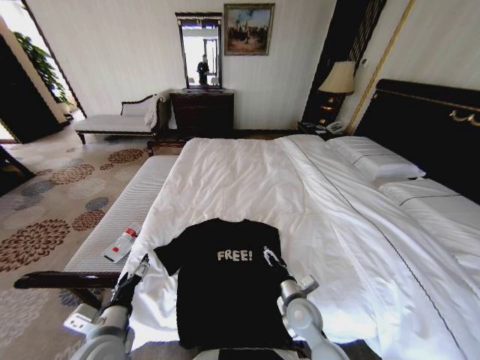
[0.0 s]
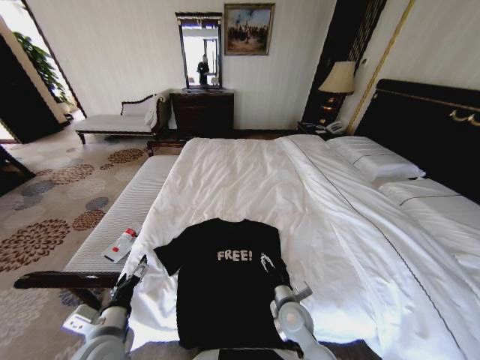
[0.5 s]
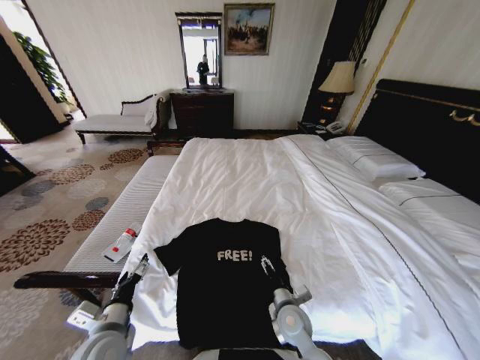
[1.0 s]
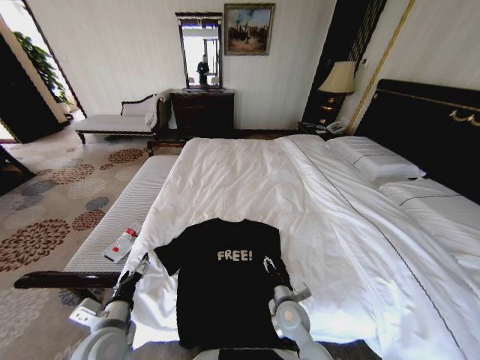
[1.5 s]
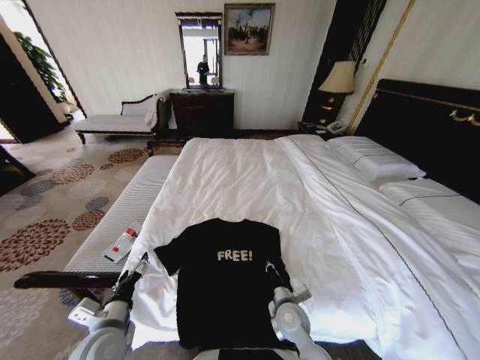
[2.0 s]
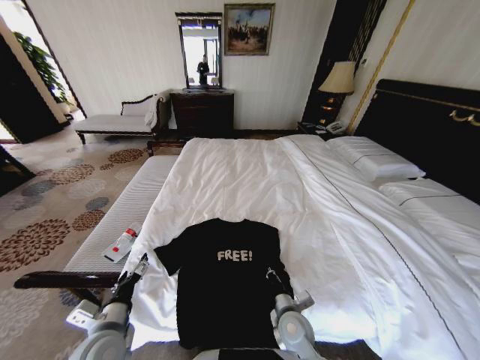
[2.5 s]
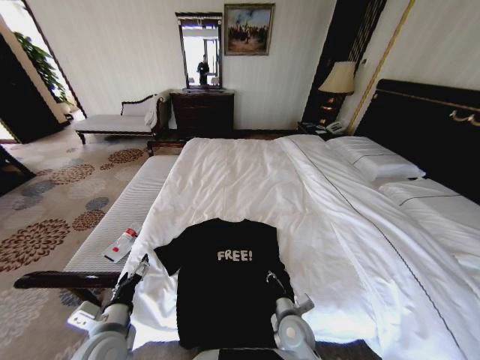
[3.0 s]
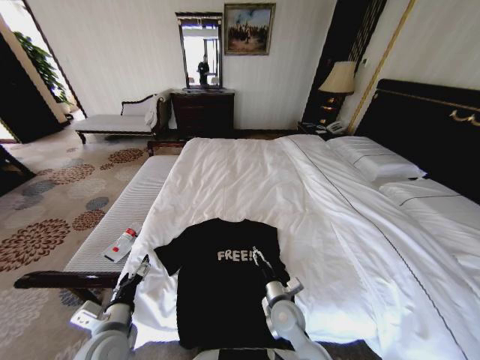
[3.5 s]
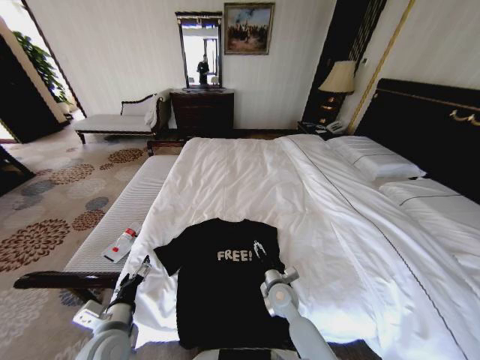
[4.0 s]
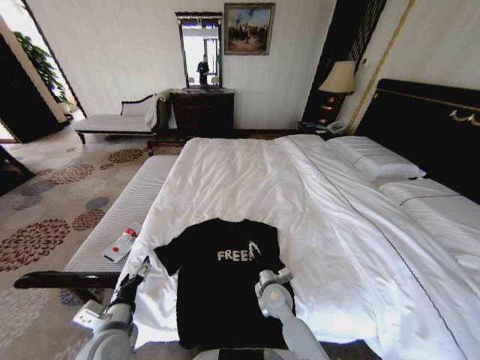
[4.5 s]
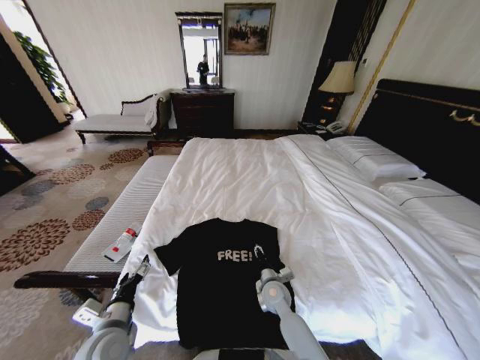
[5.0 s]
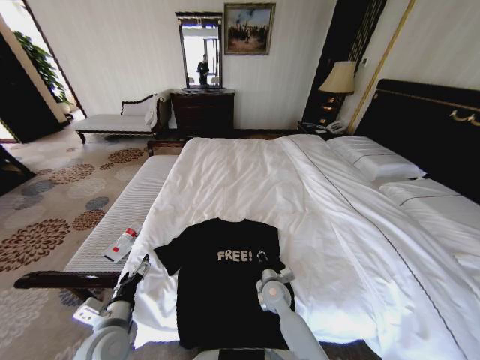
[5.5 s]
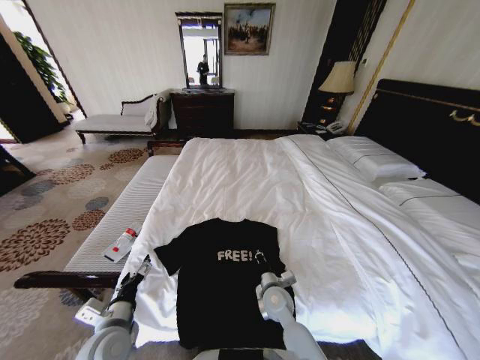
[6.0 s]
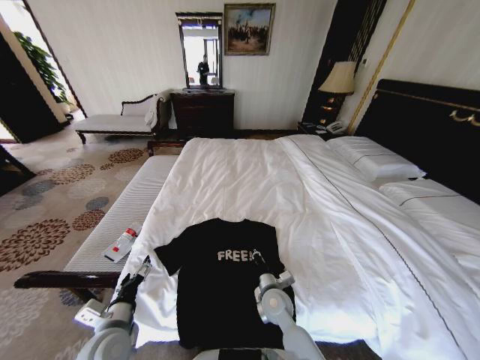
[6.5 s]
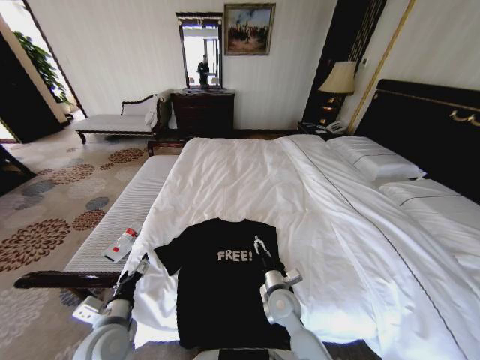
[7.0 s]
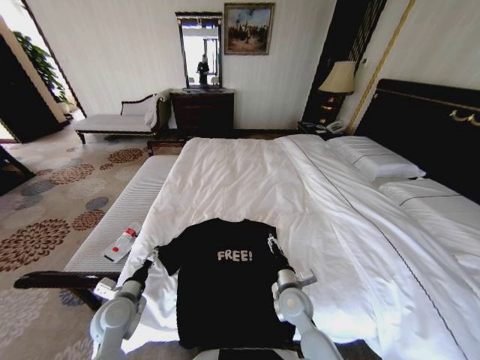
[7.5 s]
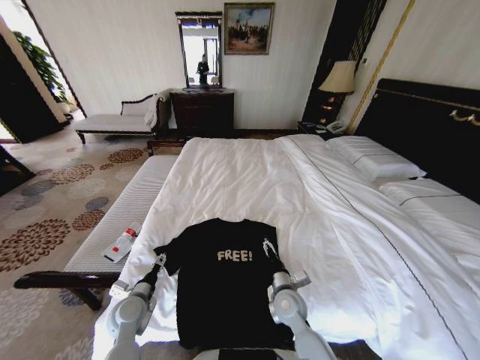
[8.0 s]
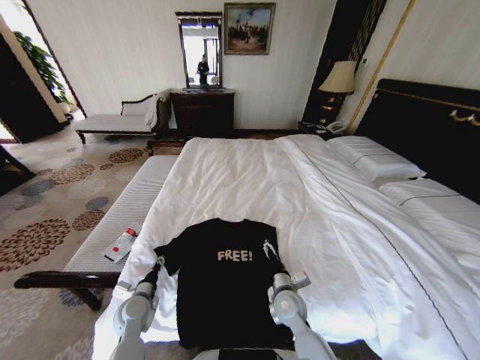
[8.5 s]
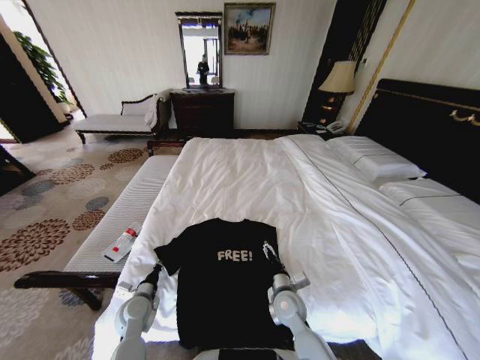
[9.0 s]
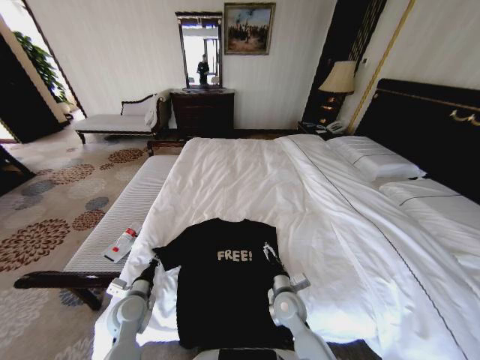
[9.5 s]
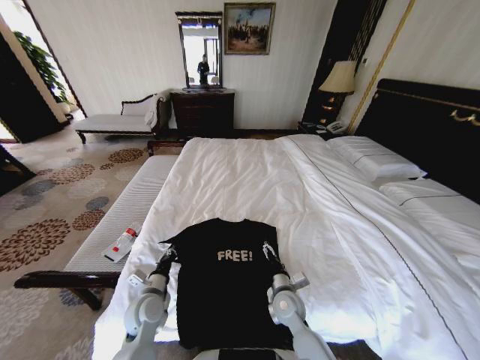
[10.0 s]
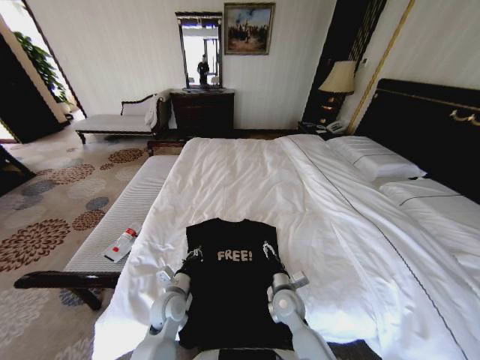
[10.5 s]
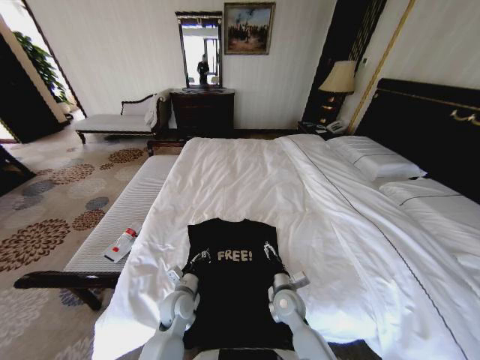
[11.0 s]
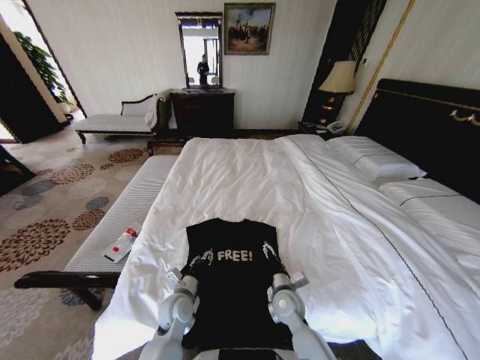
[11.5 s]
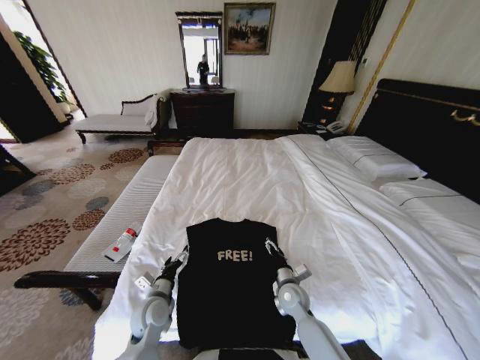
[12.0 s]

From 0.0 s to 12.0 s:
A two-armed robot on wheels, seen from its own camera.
Task of the whole recording: Fold the clothes on the bed.
From 0.0 s to 2.0 s: The right gripper closes up.
From 2.0 s to 4.0 s: The right gripper heads forward, covering about 5 cm, and opens.
From 4.0 s to 6.0 s: The right gripper closes.
From 6.0 s to 8.0 s: The right gripper opens up; the left gripper goes some 10 cm forward and downward.
From 8.0 s to 10.0 s: The left gripper is displaced to the right by roughly 5 cm, and closes up.
From 10.0 s to 12.0 s: The left gripper opens.

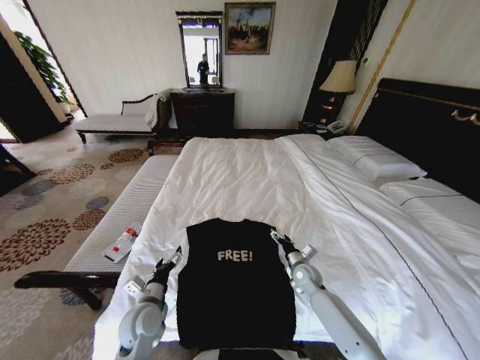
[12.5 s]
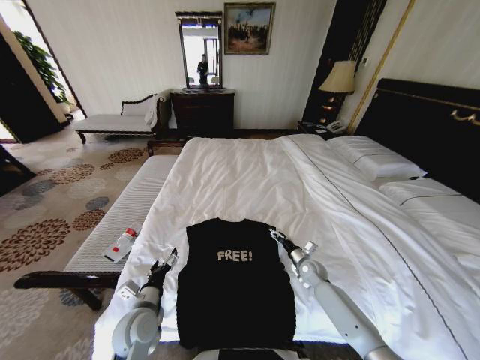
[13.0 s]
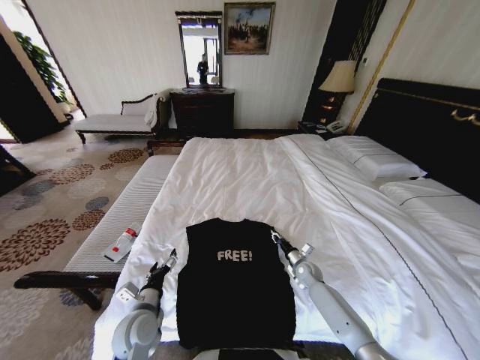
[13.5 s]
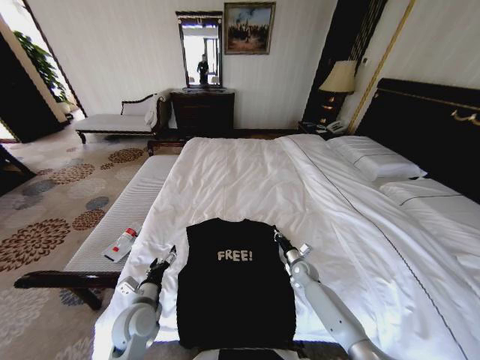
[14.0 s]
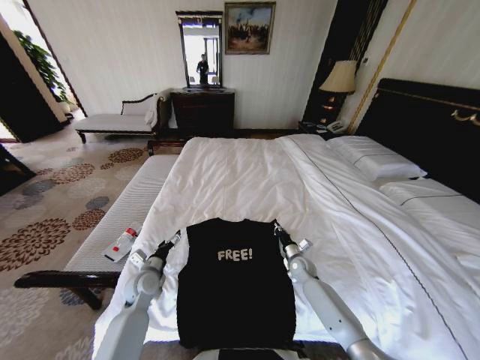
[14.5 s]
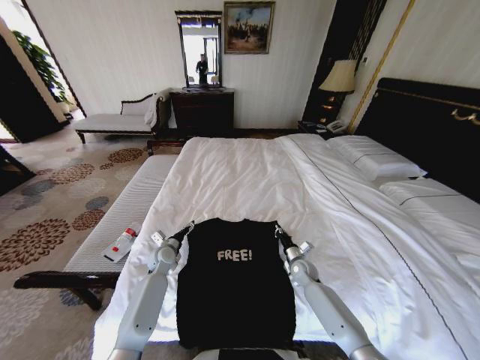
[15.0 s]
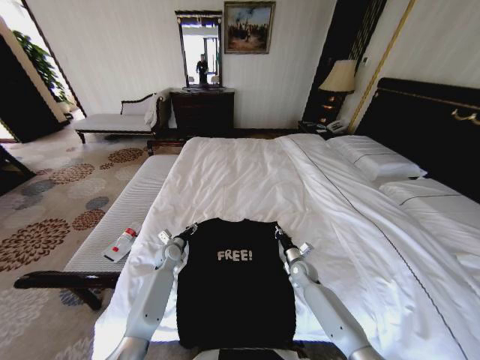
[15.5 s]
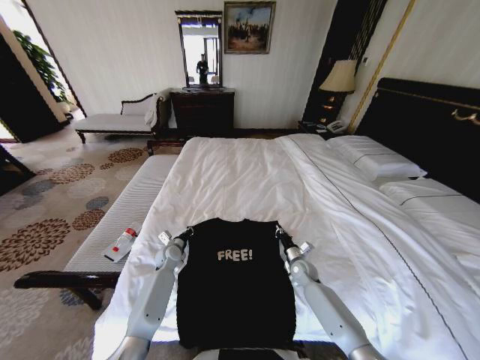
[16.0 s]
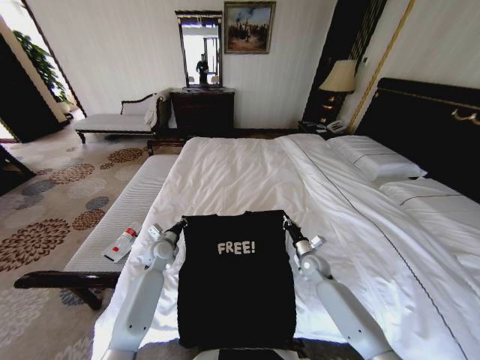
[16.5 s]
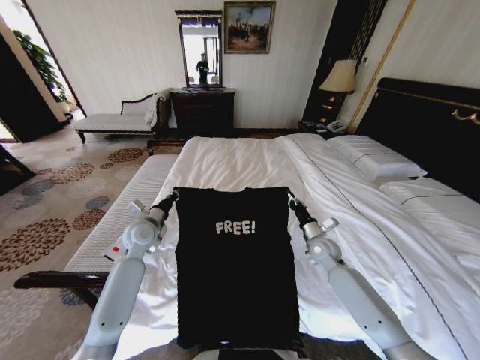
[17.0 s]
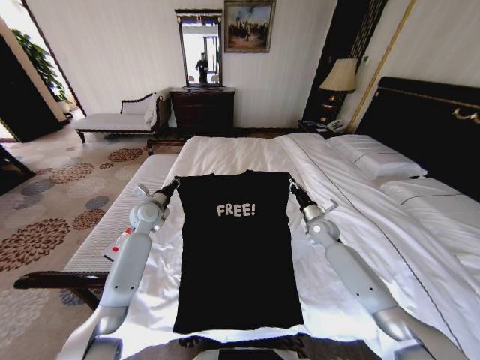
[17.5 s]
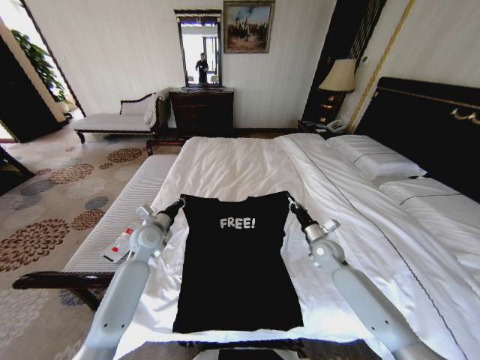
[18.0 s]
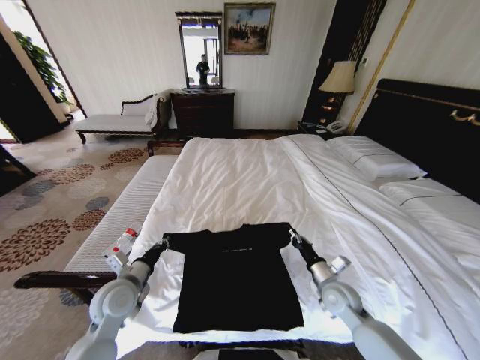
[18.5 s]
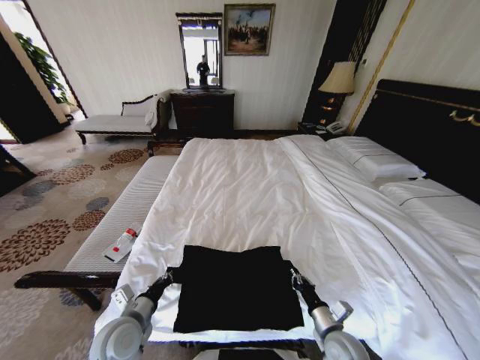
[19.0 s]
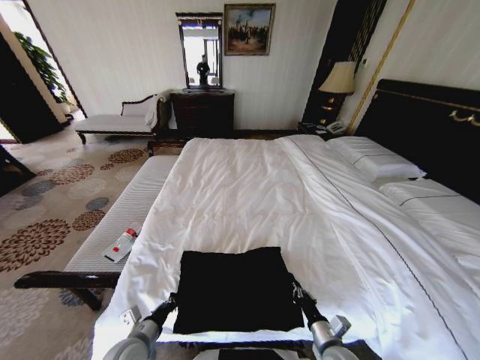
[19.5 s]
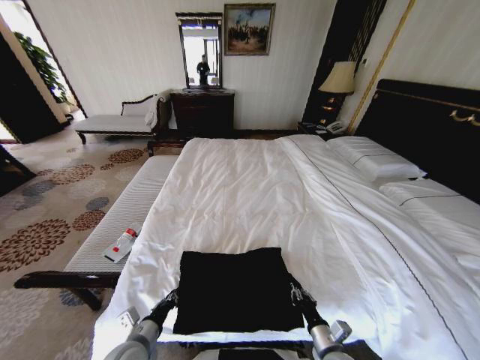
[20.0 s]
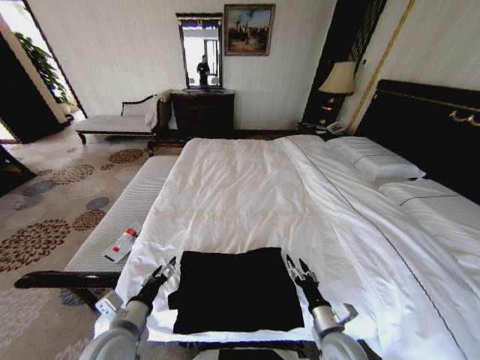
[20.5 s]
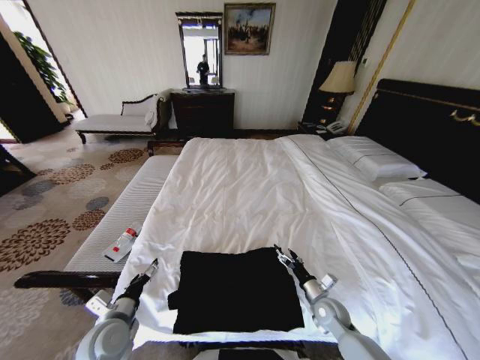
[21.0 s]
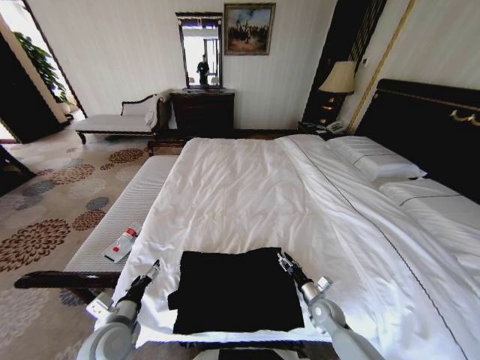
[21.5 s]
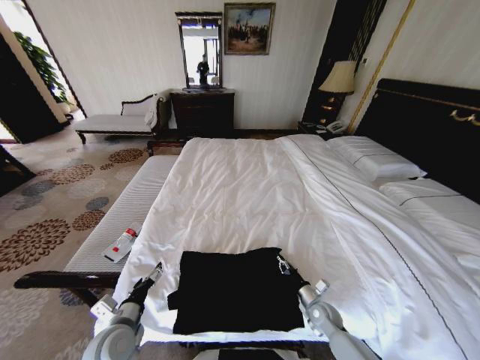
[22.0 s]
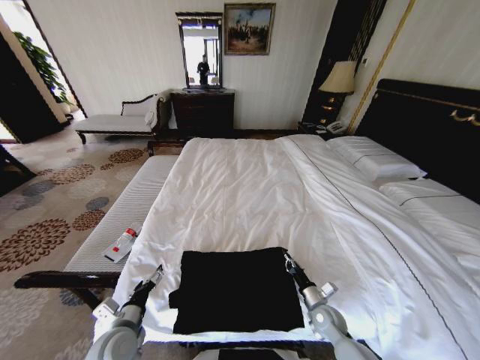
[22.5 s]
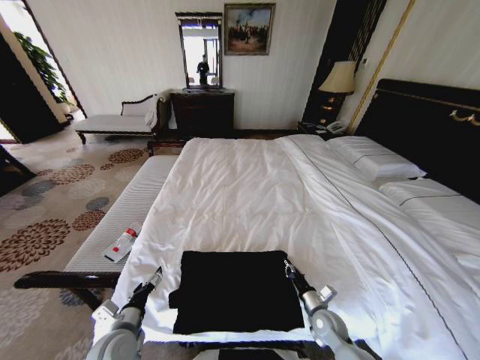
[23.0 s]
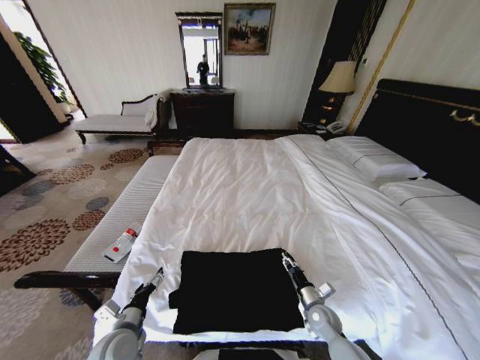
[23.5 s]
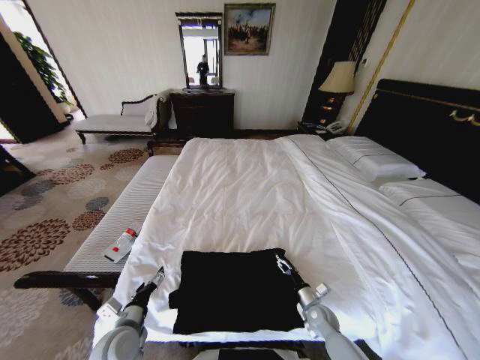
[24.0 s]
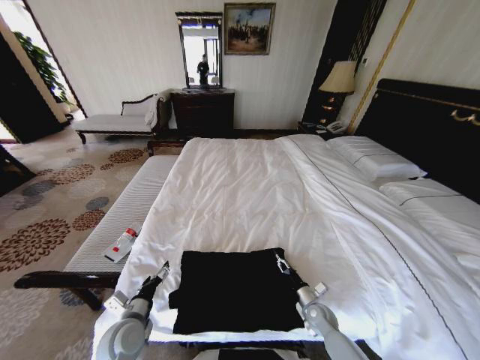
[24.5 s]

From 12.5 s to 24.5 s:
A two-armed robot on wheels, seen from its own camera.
Task of the whole recording: Fold the clothes on the bed.
From 12.5 s to 14.5 s: The right gripper ends up some 5 cm from where it was, and closes up. Meanwhile the left gripper shifts approximately 10 cm forward.
From 14.5 s to 16.5 s: The left gripper goes roughly 10 cm forward, and closes its fingers; the right gripper changes place by approximately 5 cm.
From 16.5 s to 18.5 s: Both grippers move backward and upward, about 15 cm.
From 18.5 s to 20.5 s: Both grippers move backward, roughly 10 cm. The right gripper opens up. Meanwhile the left gripper opens.
From 20.5 s to 22.5 s: The left gripper changes place by approximately 5 cm; the right gripper heads forward and downward, covering roughly 10 cm, and closes its fingers.
From 22.5 s to 24.5 s: The right gripper opens its fingers.

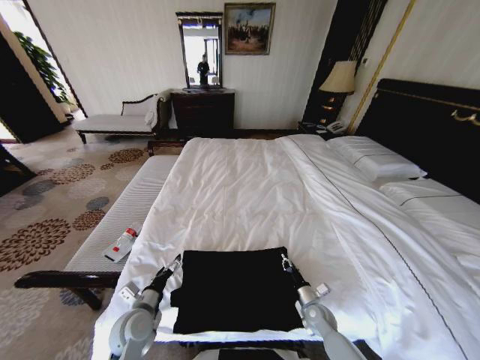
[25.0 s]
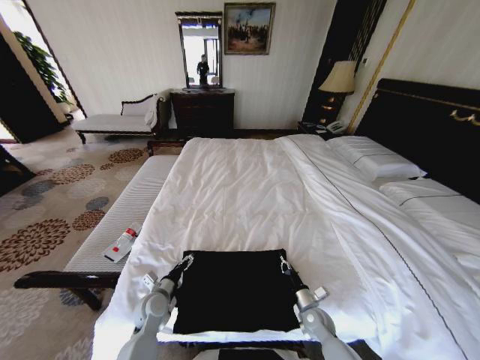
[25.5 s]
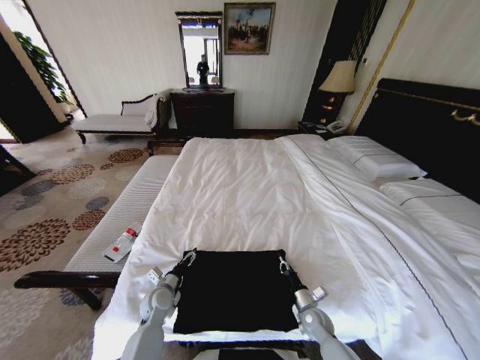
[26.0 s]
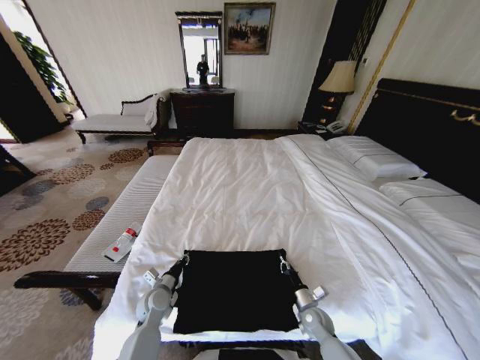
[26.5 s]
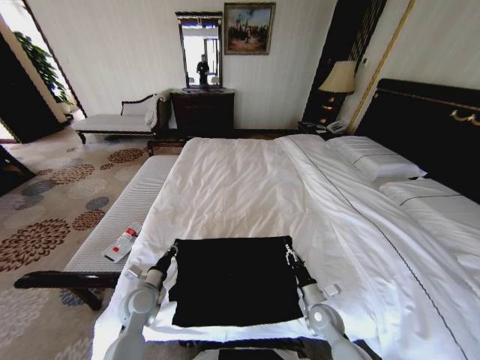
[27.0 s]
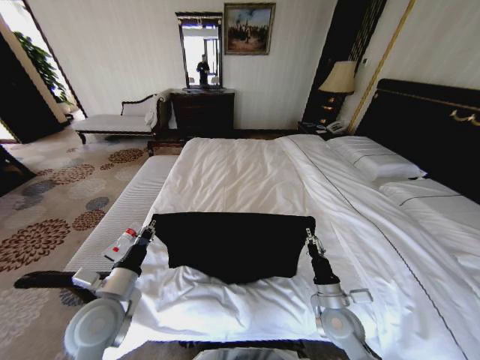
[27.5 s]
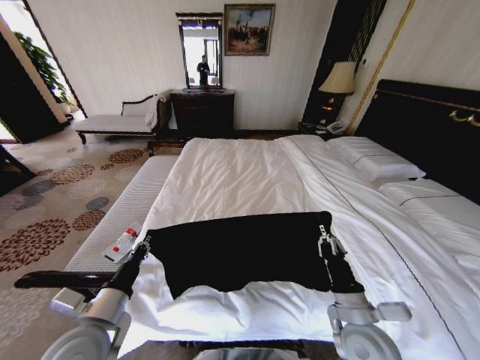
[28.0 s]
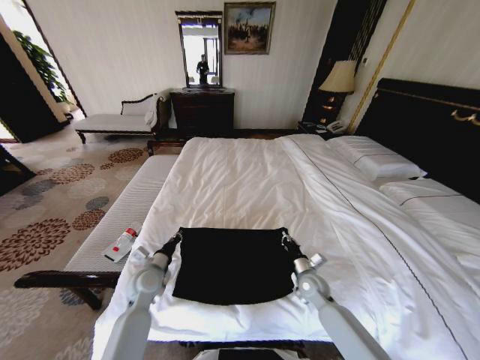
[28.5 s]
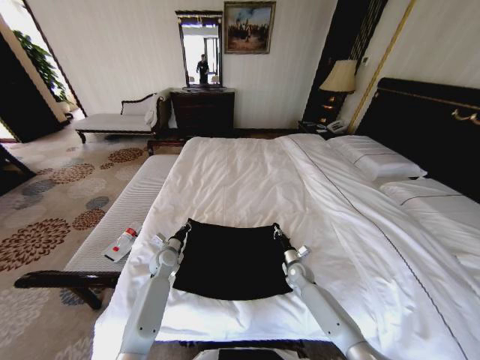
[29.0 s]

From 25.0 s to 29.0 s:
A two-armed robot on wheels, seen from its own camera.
Task of the whole recording: Fold the clothes on the bed.
From 25.0 s to 27.0 s: The left gripper goes approximately 5 cm forward, and closes up.
From 27.0 s to 29.0 s: Both grippers travel together forward, approximately 15 cm.
